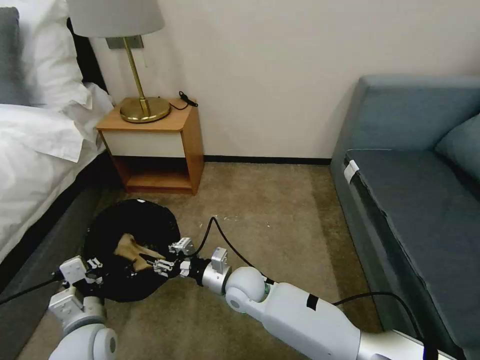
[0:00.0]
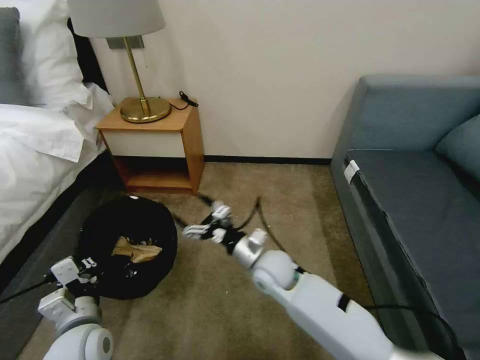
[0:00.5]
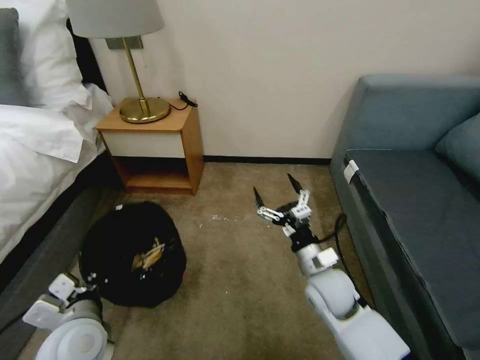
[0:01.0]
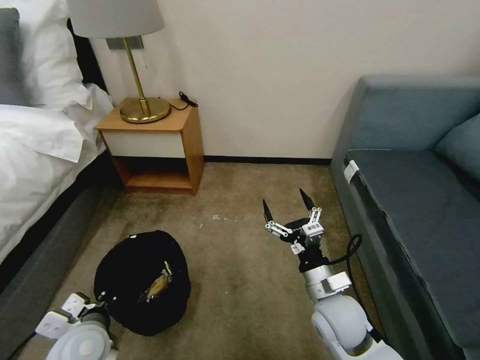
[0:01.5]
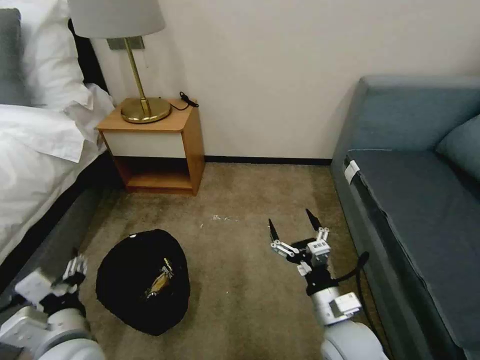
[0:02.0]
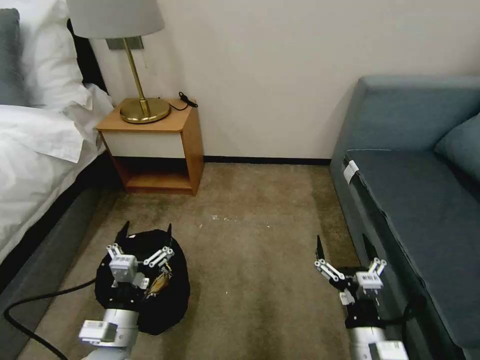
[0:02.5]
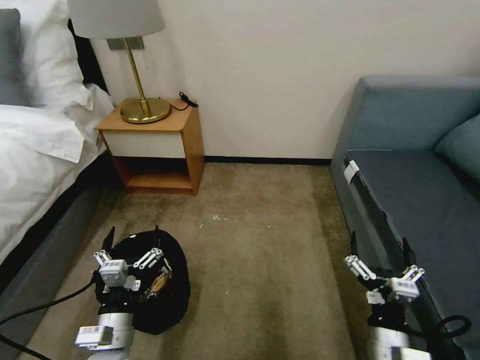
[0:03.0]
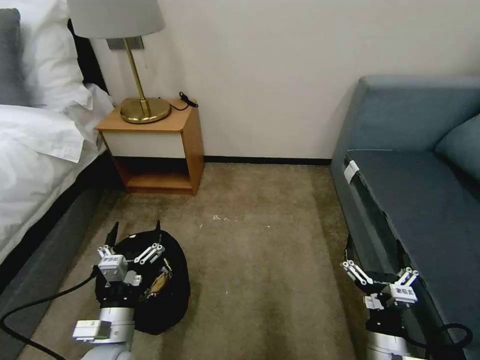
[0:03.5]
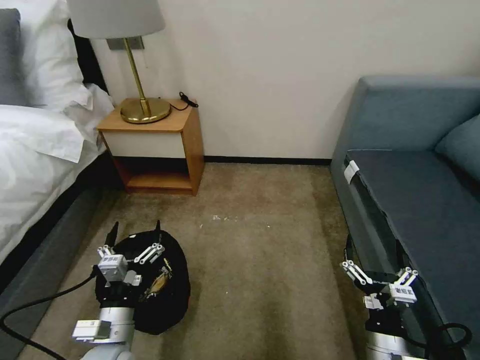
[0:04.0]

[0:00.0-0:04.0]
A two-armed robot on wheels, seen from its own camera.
Task of the whole recording: Pick up the trash bin, then pick up the garbage on the floor and place it into the trash bin.
0:00.0 to 0:02.0: The left gripper travels upward by some 5 cm, and opens up; the right gripper goes approximately 25 cm to the right and backward, and opens up.
0:02.0 to 0:04.0: The left gripper moves downward, about 10 cm. The right gripper goes approximately 10 cm backward and to the right.
